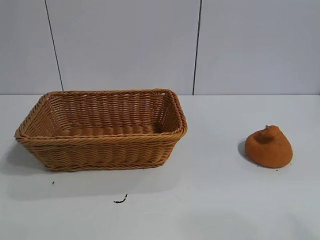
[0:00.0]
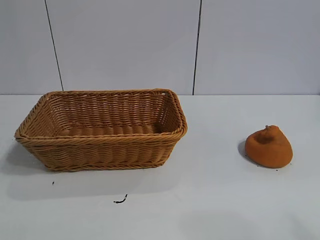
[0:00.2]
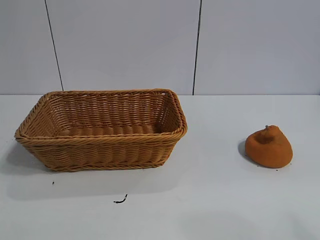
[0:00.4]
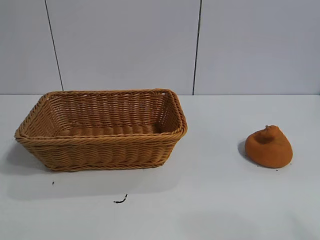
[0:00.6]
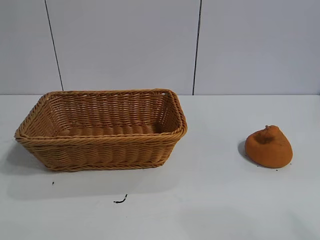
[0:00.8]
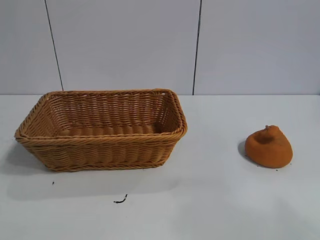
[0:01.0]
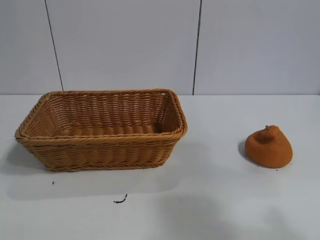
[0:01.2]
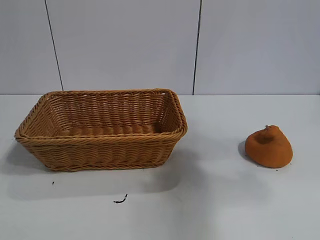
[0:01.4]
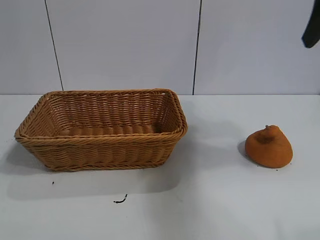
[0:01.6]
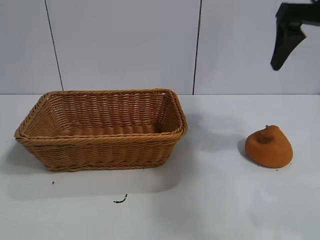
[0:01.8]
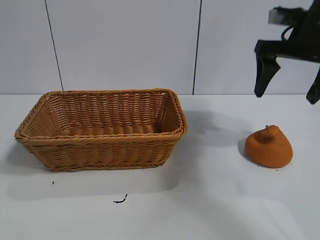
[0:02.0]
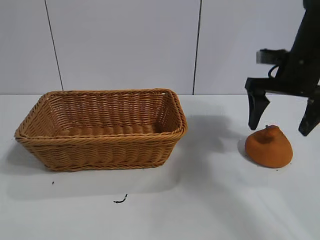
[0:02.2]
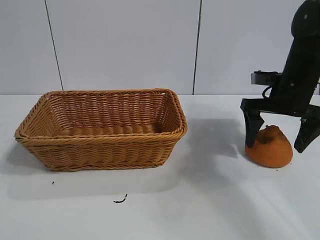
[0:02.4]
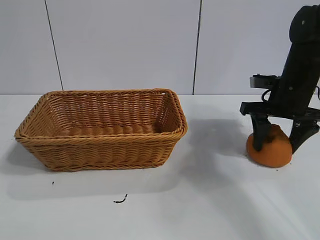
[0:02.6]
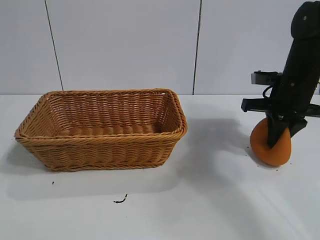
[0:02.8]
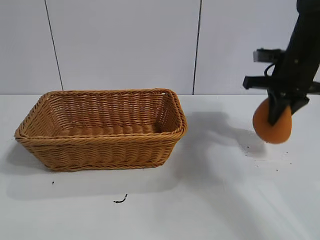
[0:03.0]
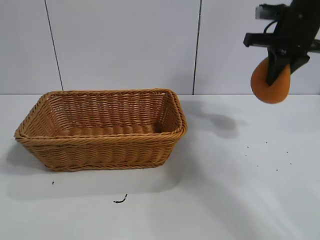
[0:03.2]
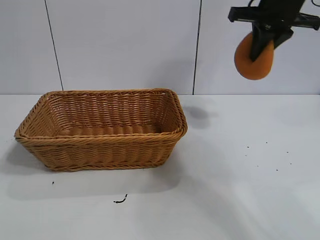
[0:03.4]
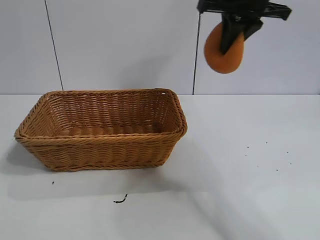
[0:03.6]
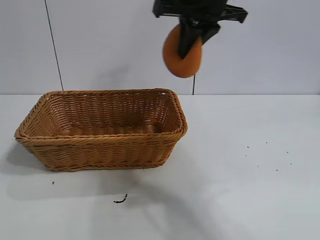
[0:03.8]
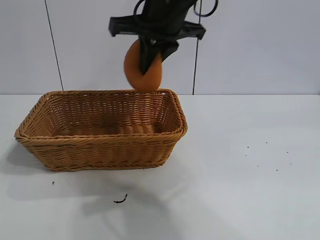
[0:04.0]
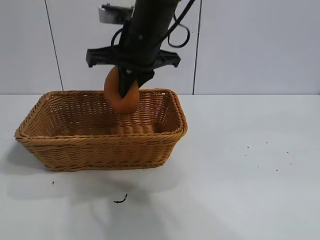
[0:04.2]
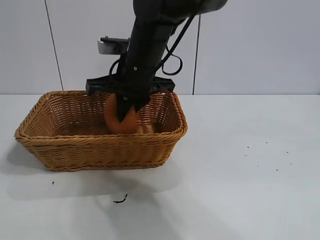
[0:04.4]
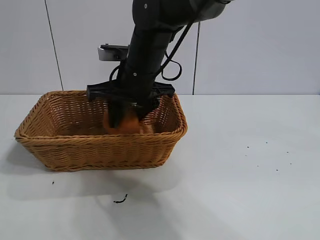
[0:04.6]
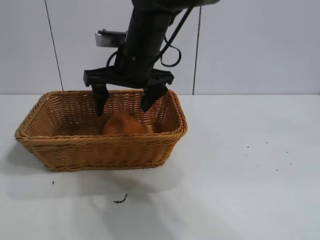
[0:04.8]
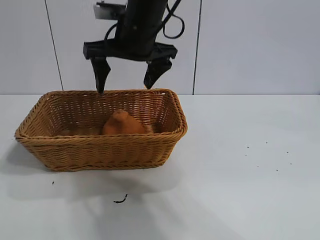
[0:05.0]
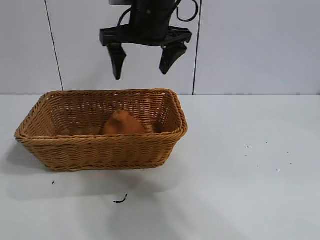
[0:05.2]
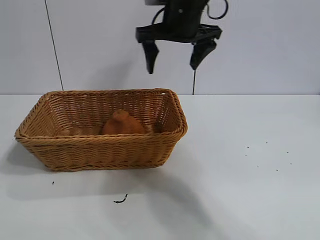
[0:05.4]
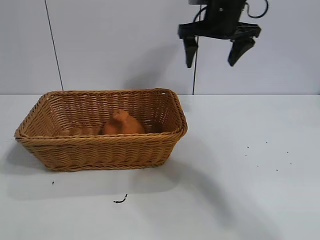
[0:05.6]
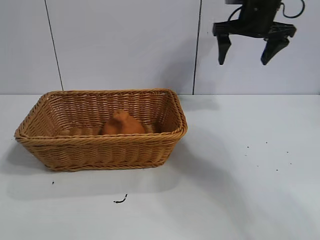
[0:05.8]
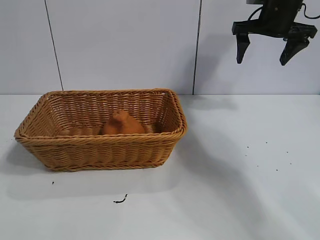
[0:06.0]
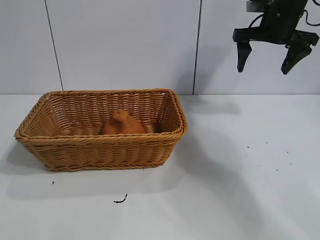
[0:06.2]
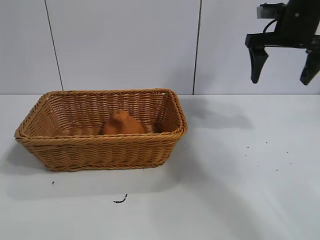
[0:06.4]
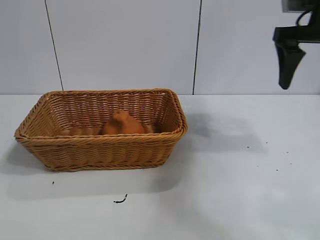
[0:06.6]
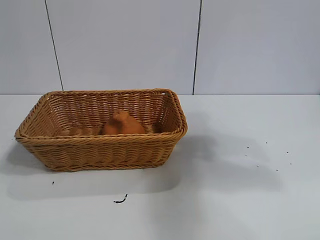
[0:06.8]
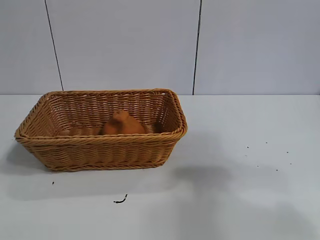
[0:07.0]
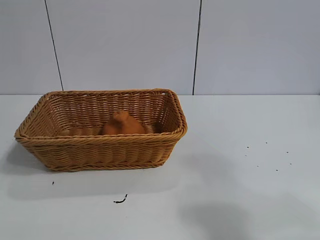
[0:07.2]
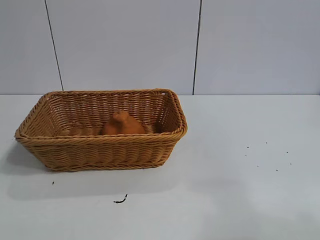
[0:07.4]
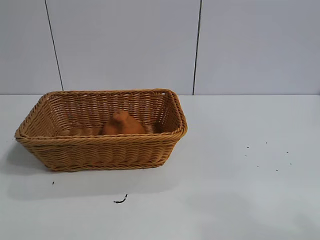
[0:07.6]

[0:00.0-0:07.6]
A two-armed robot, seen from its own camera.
Task of the whole recording: pick up the orange and put it into the basket.
Step, 0:00.8 to 0:02.6: Grasp the orange with right gripper.
Step, 0:02.8 to 0:04.6: Place the orange in the basket with right gripper.
